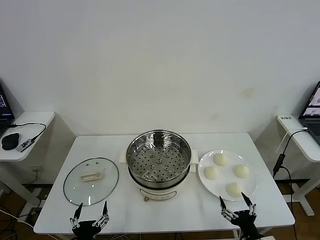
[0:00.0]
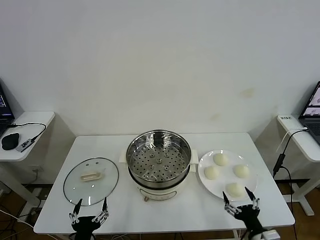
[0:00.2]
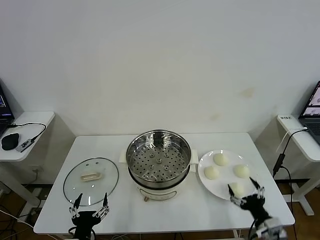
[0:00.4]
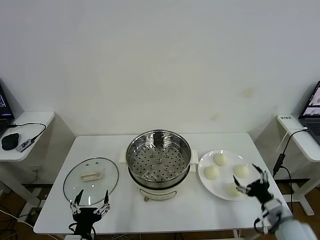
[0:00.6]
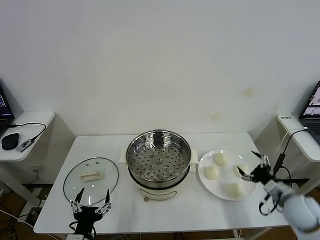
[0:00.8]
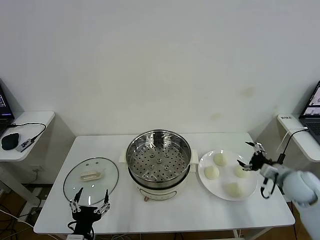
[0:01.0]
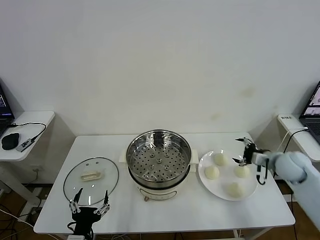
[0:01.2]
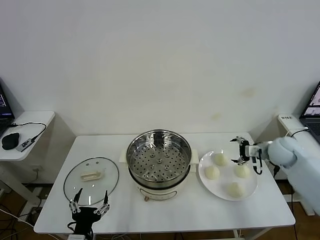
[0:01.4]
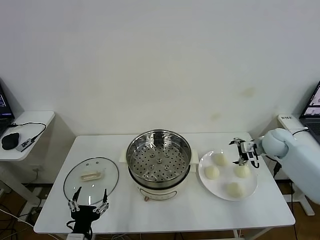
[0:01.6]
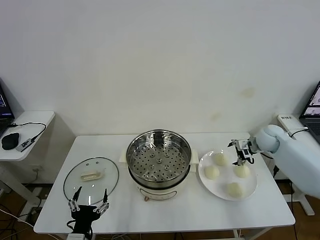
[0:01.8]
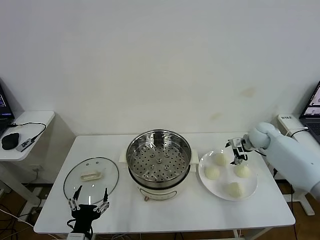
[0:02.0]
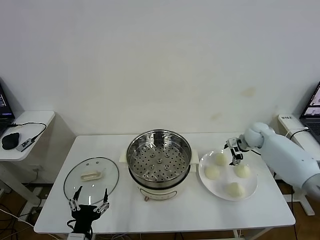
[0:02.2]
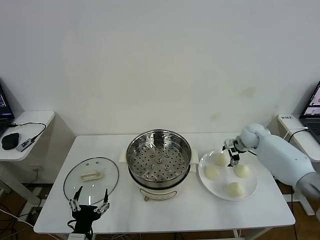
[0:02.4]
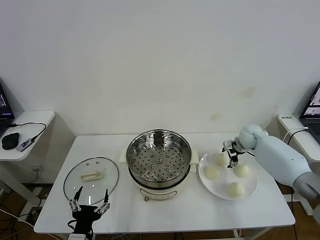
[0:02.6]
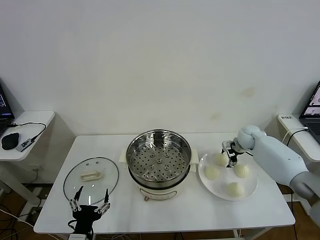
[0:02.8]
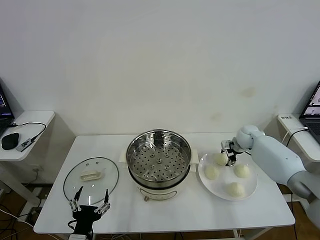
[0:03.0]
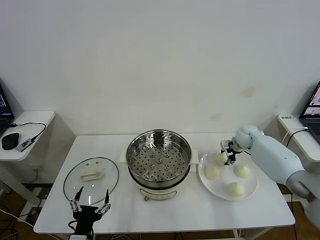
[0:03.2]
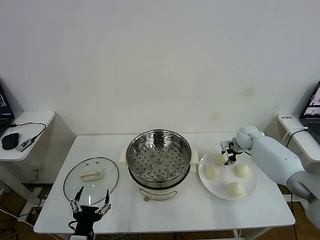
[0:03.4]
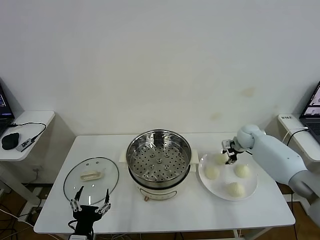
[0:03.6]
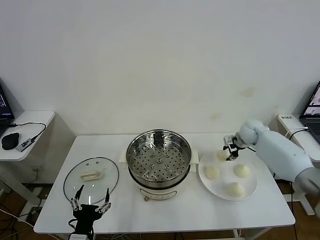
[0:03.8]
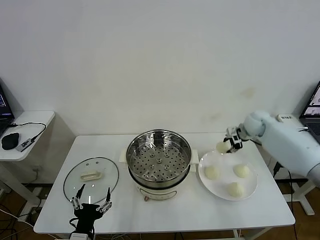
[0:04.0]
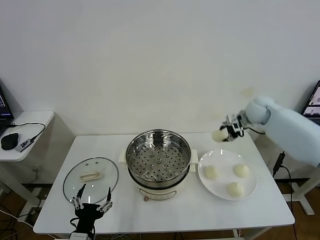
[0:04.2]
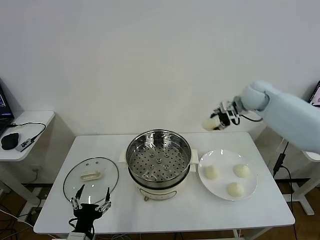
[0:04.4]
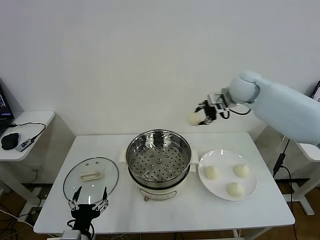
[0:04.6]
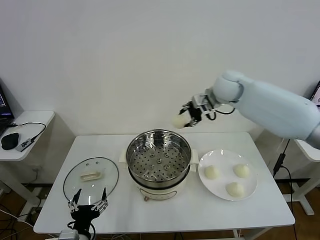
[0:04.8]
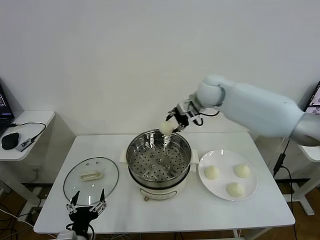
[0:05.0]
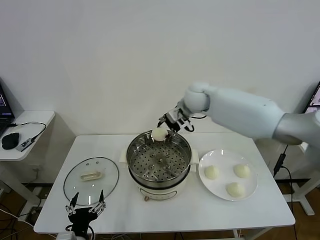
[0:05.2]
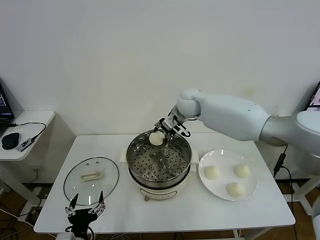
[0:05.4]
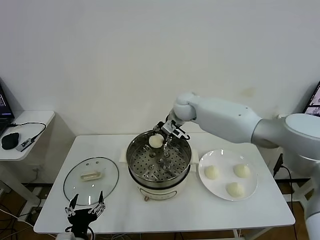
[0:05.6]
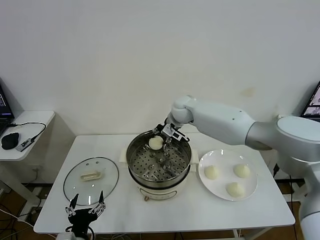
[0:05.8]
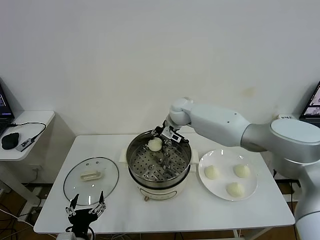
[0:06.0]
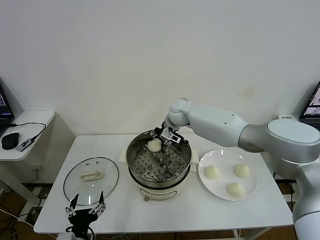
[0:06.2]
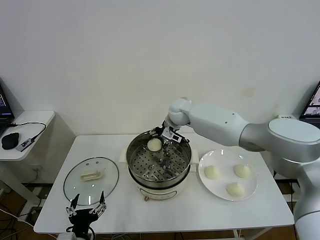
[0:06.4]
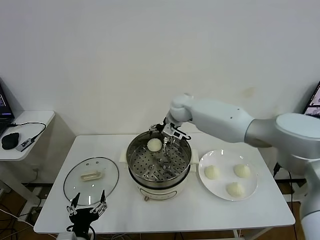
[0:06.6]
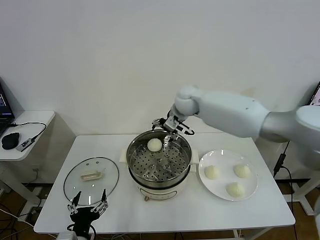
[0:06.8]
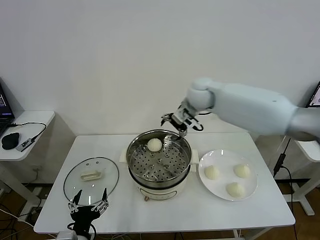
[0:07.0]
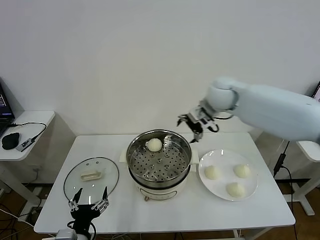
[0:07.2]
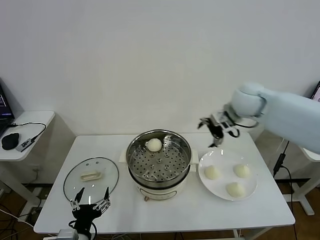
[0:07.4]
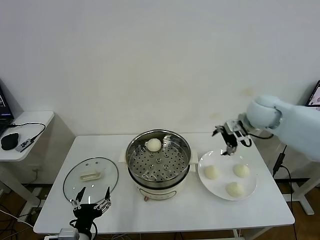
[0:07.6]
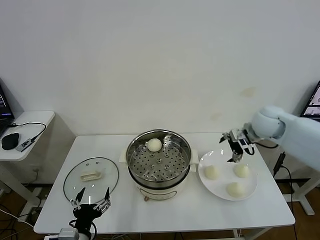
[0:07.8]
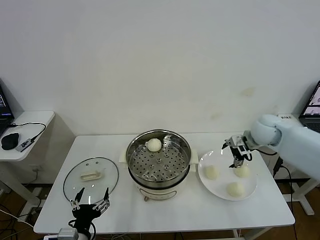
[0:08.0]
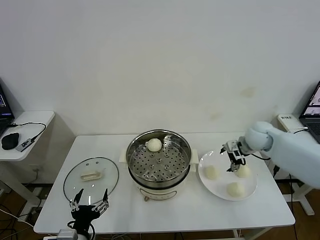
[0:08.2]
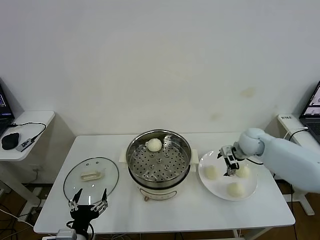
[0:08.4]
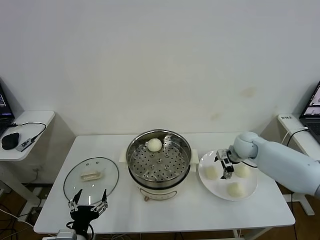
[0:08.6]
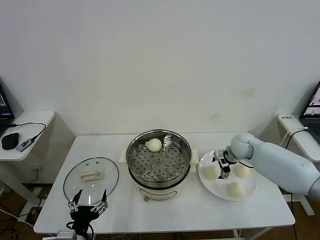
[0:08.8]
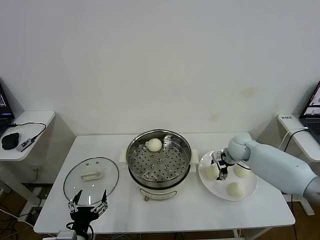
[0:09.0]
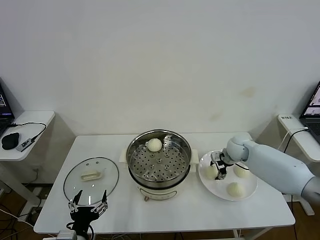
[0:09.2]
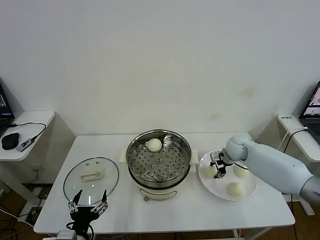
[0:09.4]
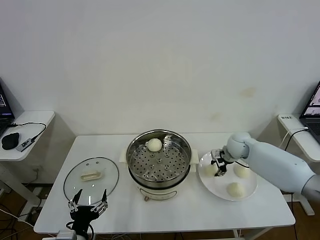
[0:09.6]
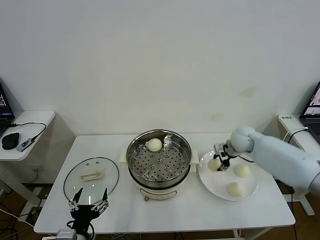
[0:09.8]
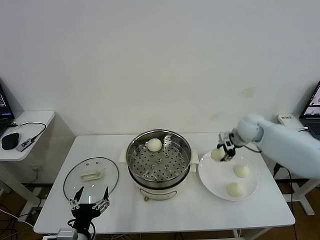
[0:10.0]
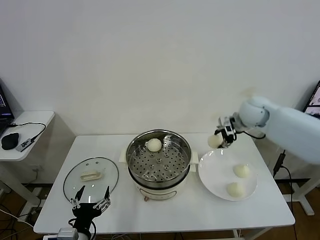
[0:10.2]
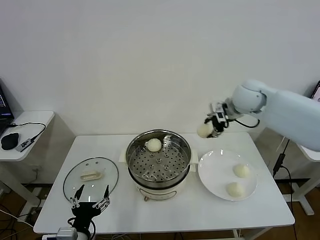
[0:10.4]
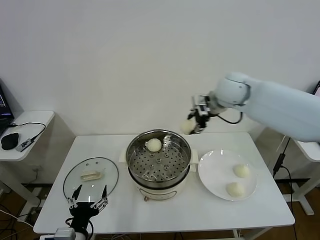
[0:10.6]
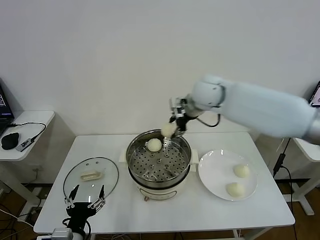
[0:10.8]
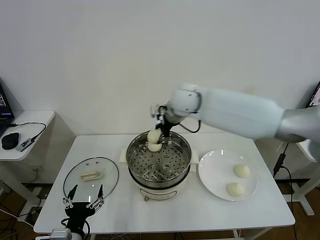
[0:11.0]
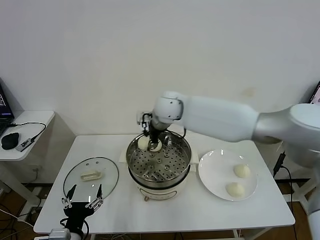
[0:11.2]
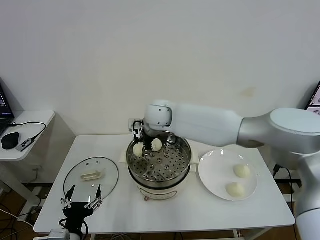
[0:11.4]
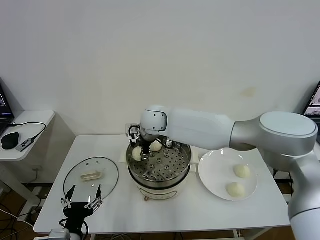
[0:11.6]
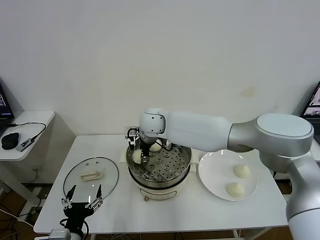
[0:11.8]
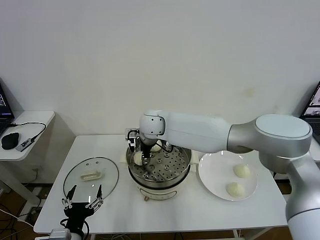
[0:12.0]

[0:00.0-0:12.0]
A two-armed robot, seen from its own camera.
Task of the whole recording: take steamed baozi put them in steamer then cover it.
Step, 0:00.0 to 0:03.2: Grasp the baozi in the plate with right gripper.
Step, 0:03.4 to 0:06.4: Place the baozi on the steamer with right gripper.
Step, 0:06.6 to 0:09.4: Grasp the baozi in the plate with right gripper.
0:01.6 to 0:03.0: The right gripper moves forward and downward, some 10 cm, and closes its fingers.
0:03.0 to 0:04.4: The right gripper heads upward, covering approximately 20 cm.
0:04.4 to 0:06.0: The right gripper goes roughly 25 cm to the left and downward.
0:06.0 to 0:07.6: The right gripper travels to the right and backward by some 25 cm, and opens up.
0:07.6 to 0:09.0: The right gripper shifts roughly 20 cm downward.
0:09.0 to 0:10.4: The right gripper is displaced upward by roughly 25 cm, and closes its fingers.
0:10.4 to 0:12.0: The right gripper heads to the left, covering approximately 30 cm.

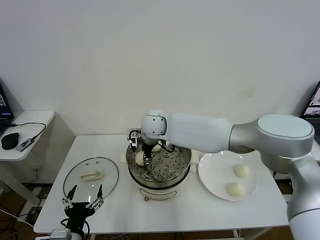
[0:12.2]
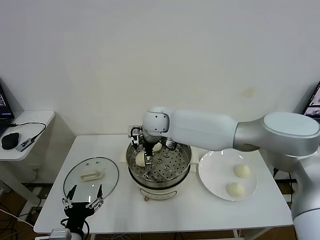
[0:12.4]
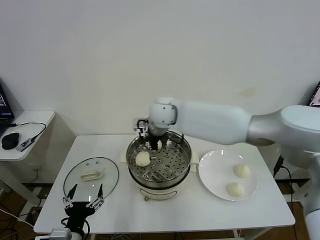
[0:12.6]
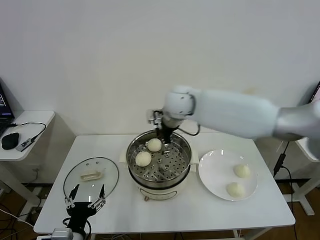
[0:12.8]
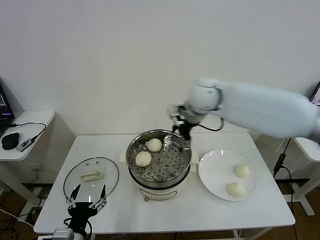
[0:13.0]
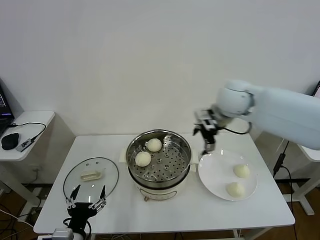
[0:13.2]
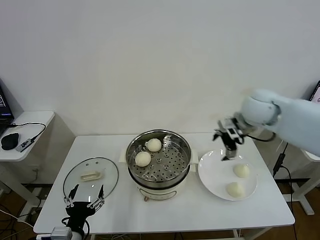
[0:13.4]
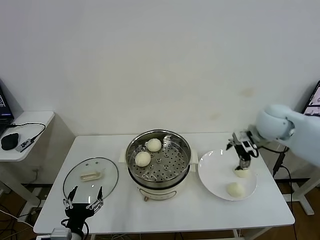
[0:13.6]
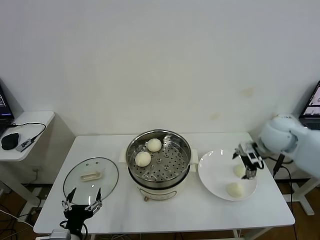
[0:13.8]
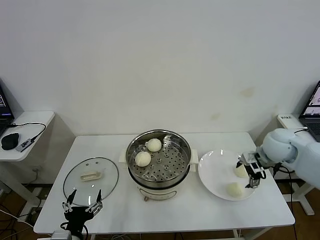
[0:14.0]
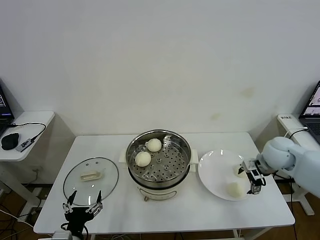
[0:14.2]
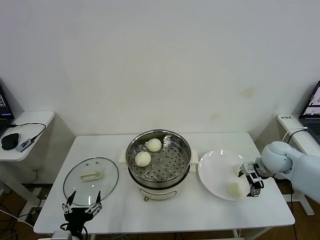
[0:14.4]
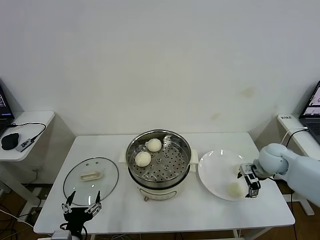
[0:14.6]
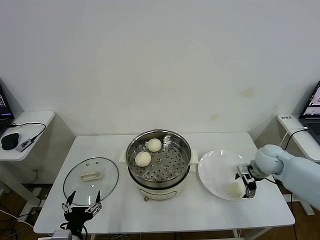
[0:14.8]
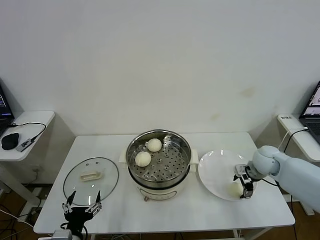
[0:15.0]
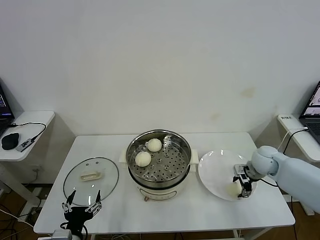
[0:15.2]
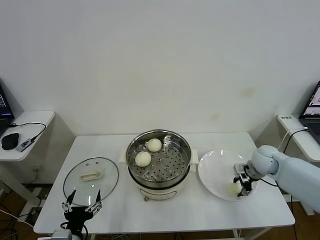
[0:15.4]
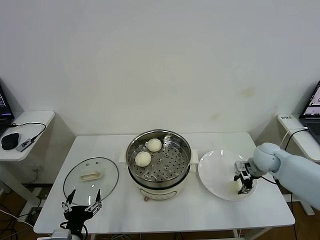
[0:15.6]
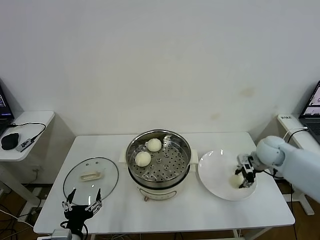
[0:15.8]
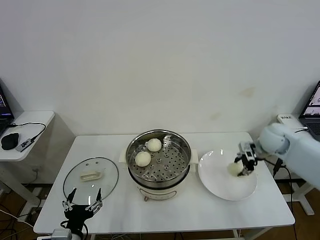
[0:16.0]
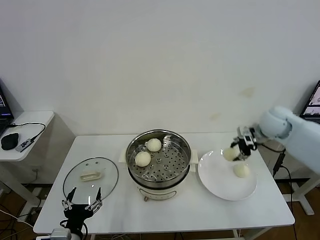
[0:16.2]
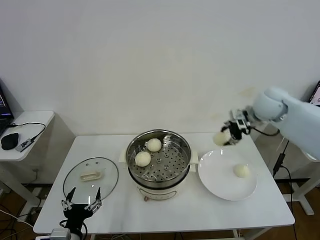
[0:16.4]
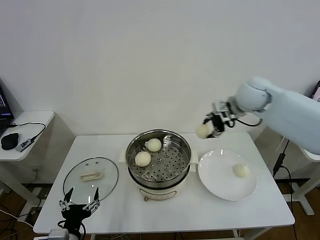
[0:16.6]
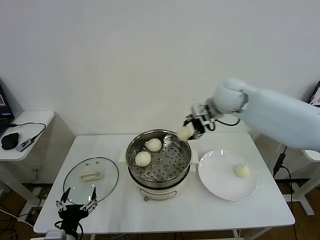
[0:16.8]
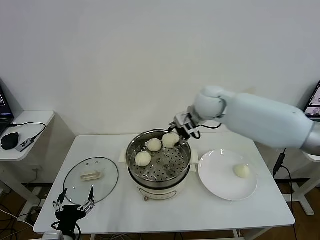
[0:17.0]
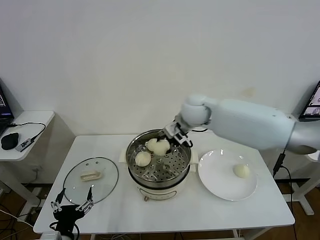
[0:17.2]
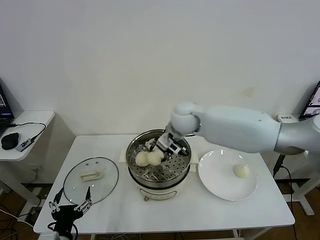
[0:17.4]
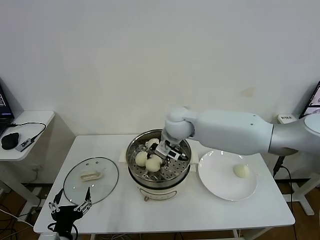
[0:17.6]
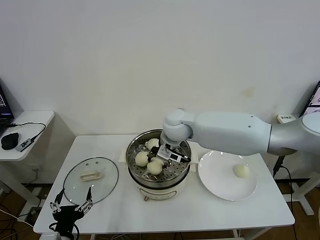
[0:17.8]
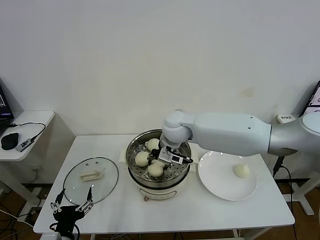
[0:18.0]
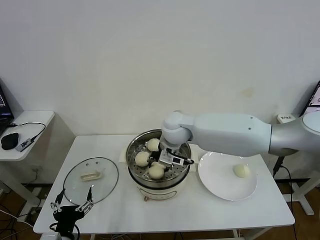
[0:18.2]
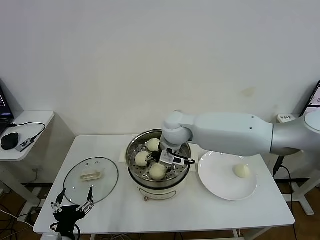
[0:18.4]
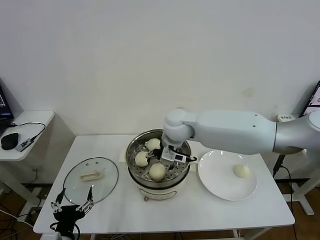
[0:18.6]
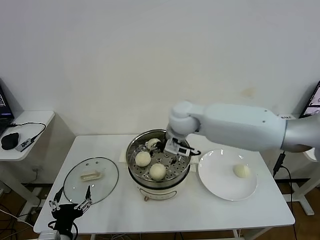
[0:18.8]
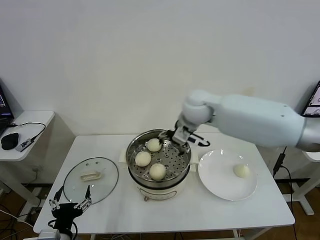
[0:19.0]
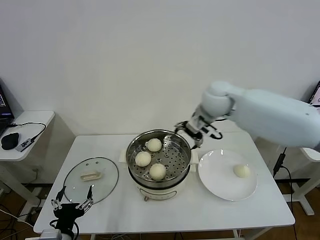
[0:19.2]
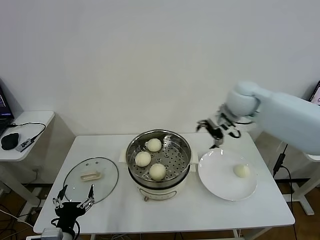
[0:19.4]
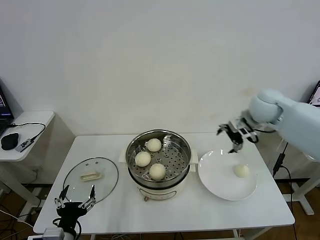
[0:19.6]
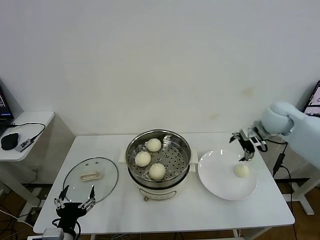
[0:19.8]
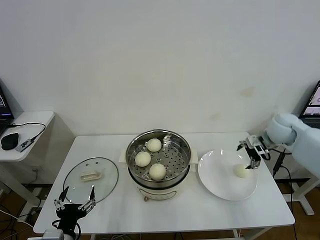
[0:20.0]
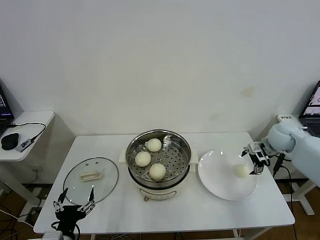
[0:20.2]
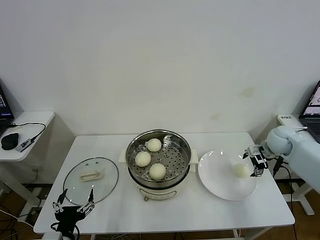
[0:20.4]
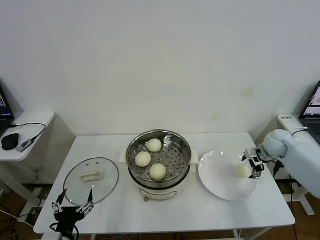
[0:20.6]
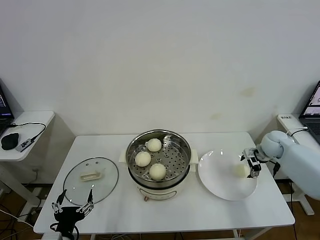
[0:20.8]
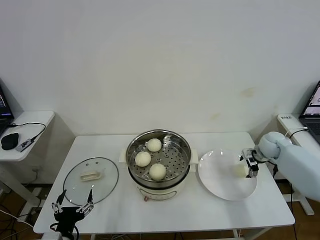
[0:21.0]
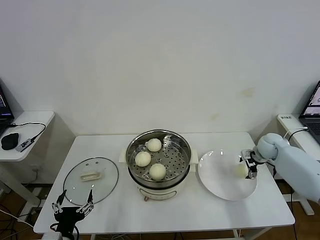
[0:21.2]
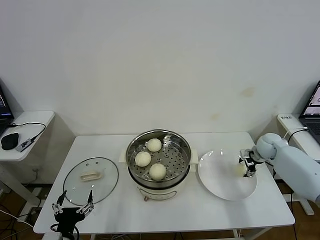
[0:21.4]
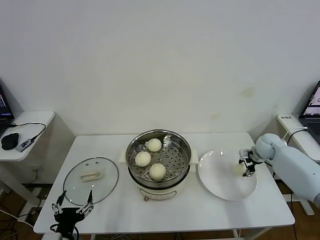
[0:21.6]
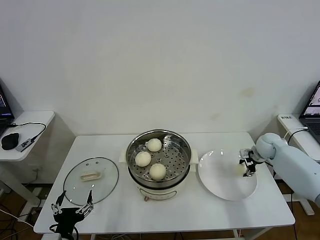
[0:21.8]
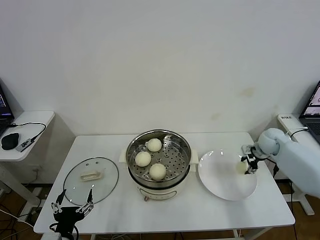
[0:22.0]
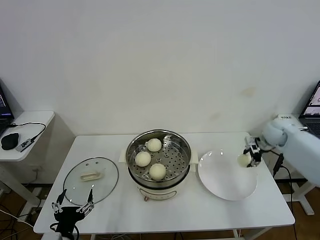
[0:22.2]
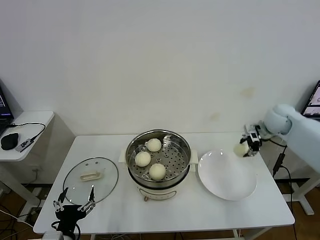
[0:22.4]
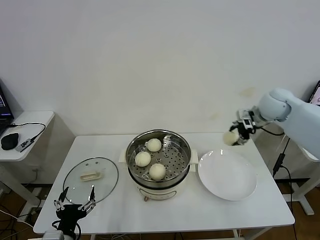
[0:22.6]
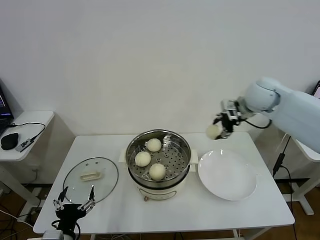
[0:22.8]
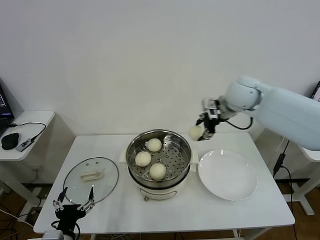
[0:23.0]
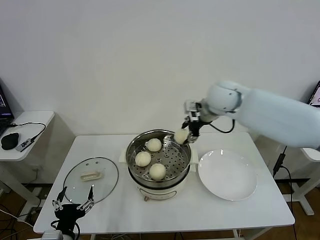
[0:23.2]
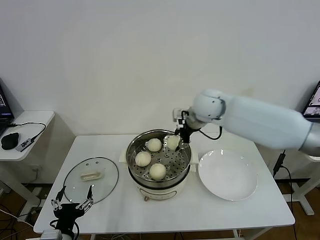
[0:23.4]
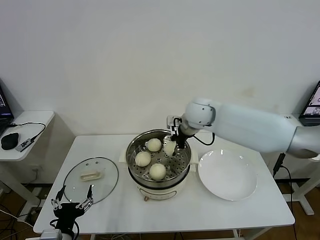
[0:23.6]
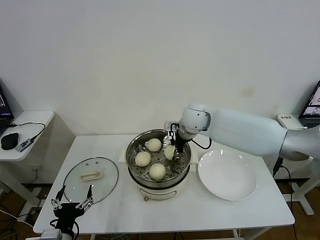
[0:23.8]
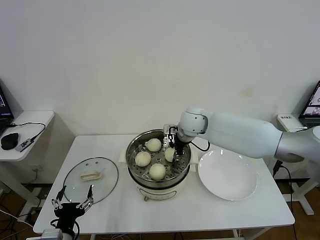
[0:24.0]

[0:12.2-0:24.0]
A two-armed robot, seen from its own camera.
Task of the whole recording: take steamed baozi put them in steamer then cover it.
Step, 0:12.6 to 0:15.4: Grasp the baozi in the plate with right gripper.
Step, 0:15.6 to 0:18.4: Place the baozi on the steamer with right gripper.
Step, 0:18.6 to 0:21.8: Grasp the baozi in the plate with right gripper.
0:12.2 to 0:13.6: The right gripper is displaced to the right by about 35 cm, and opens.
0:13.6 to 0:15.2: The right gripper is displaced downward by about 15 cm, and closes up.
0:15.2 to 0:16.6: The right gripper goes roughly 25 cm upward and to the left.
0:16.6 to 0:18.2: The right gripper is displaced to the left and downward by approximately 25 cm.
0:18.2 to 0:19.6: The right gripper goes roughly 25 cm to the right, and opens its fingers.
0:19.6 to 0:21.0: The right gripper is displaced downward and to the right by some 20 cm.
0:21.0 to 0:22.6: The right gripper travels upward by about 20 cm, and closes up.
0:22.6 to 0:24.0: The right gripper moves to the left, approximately 25 cm.
